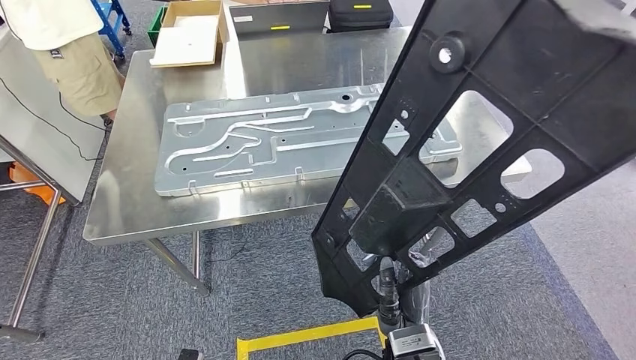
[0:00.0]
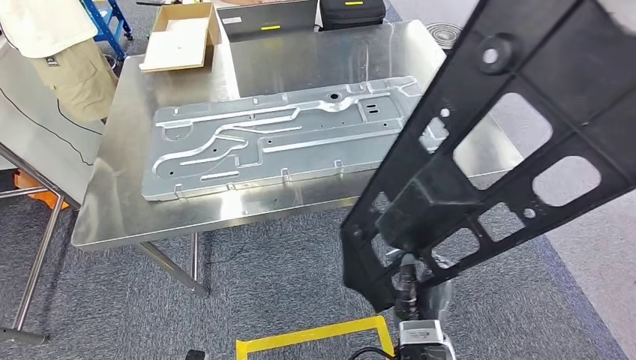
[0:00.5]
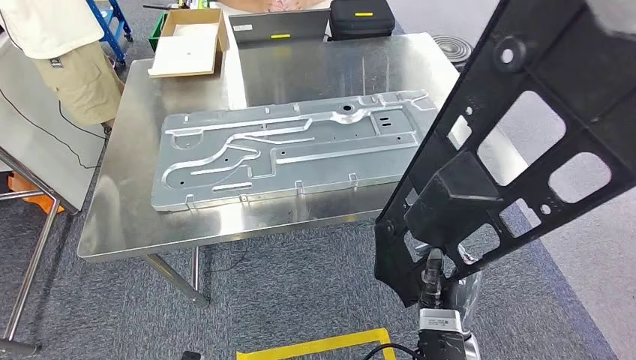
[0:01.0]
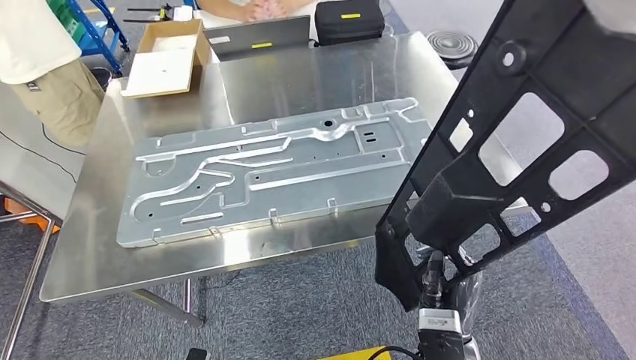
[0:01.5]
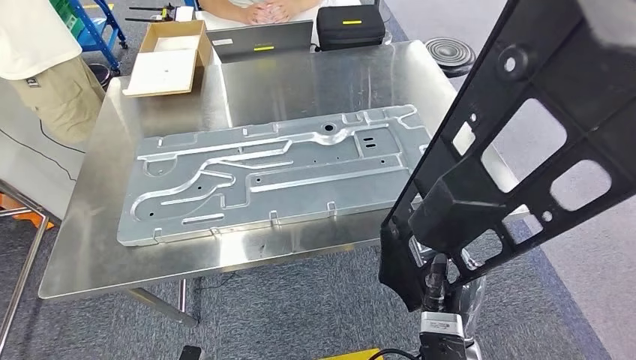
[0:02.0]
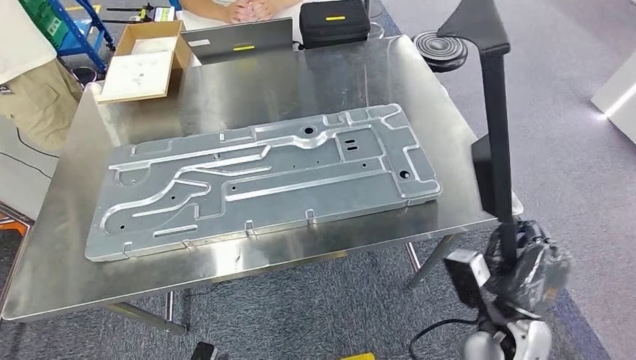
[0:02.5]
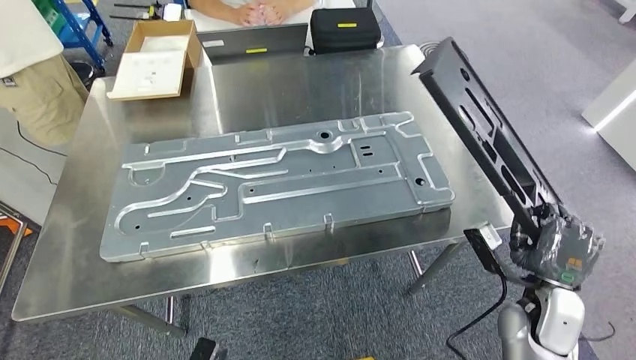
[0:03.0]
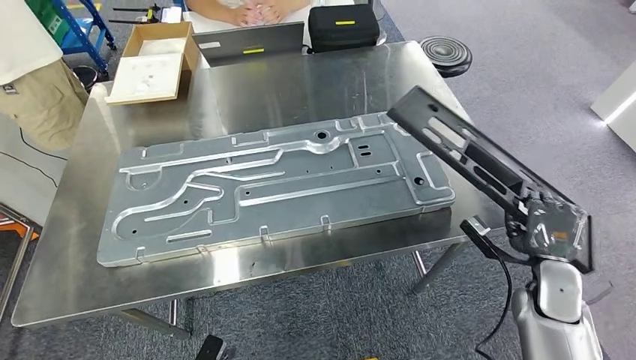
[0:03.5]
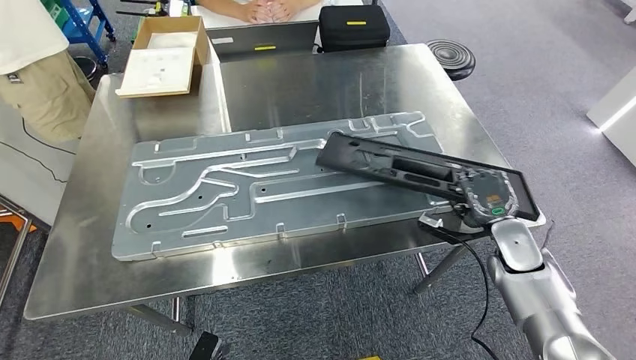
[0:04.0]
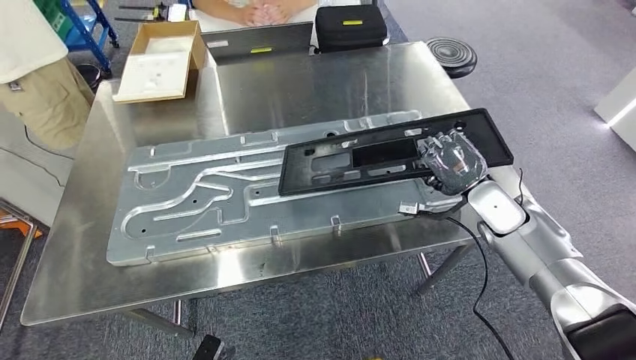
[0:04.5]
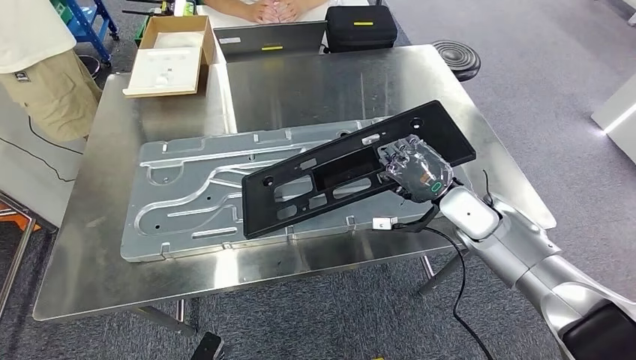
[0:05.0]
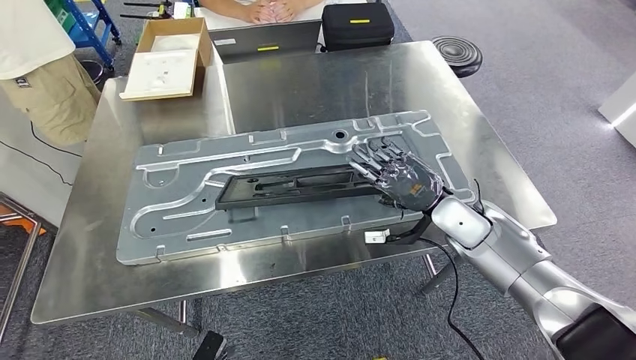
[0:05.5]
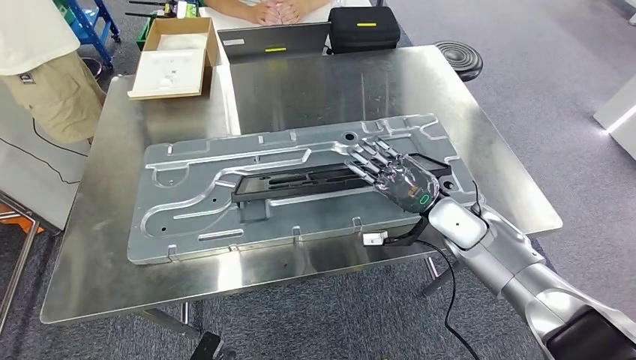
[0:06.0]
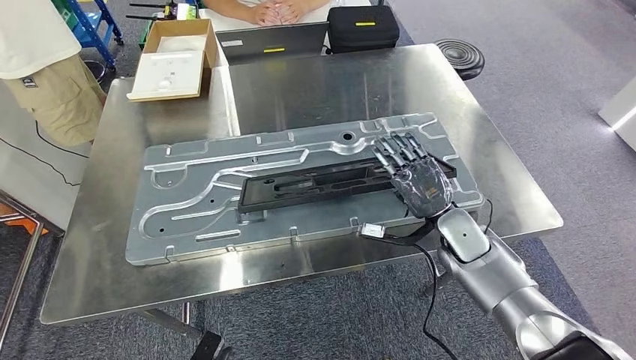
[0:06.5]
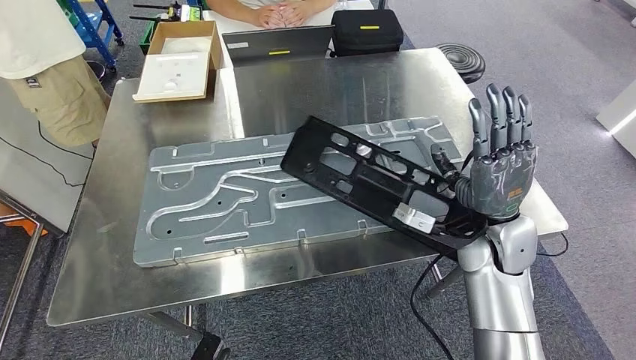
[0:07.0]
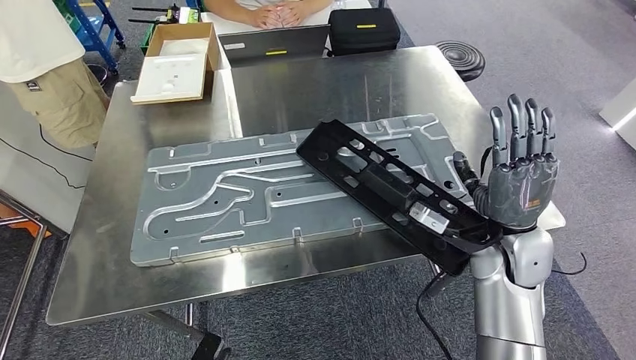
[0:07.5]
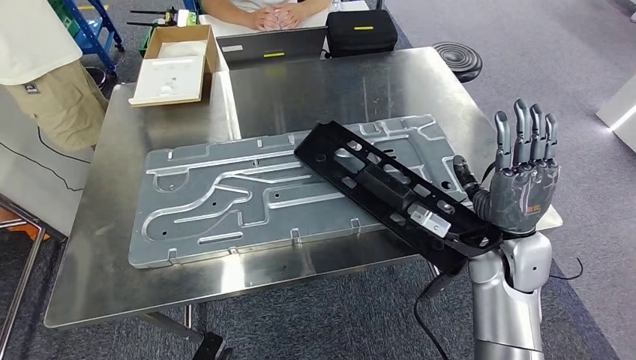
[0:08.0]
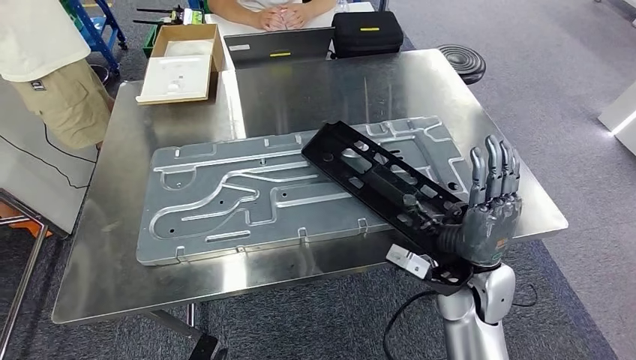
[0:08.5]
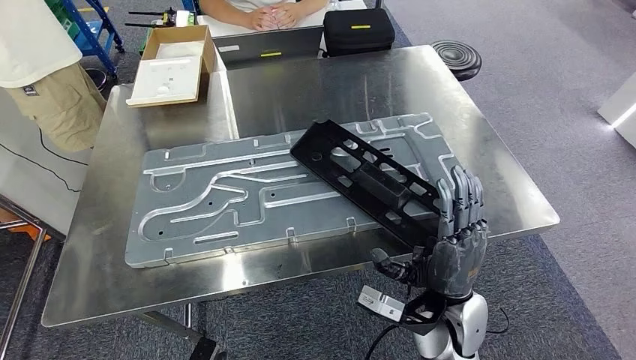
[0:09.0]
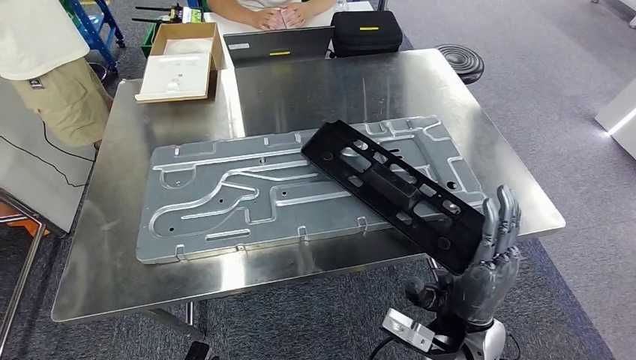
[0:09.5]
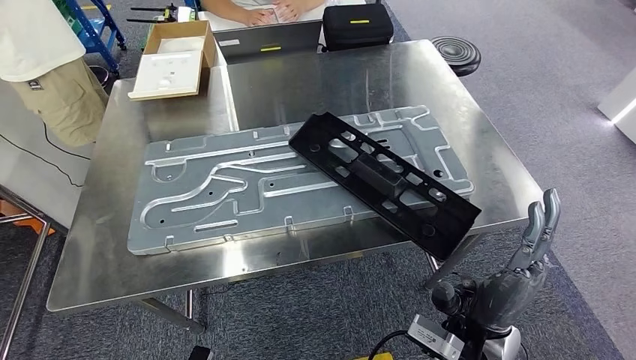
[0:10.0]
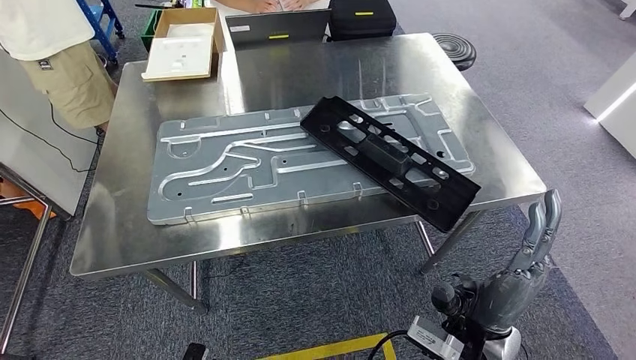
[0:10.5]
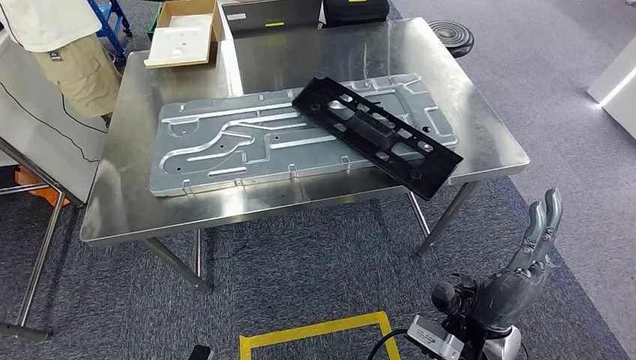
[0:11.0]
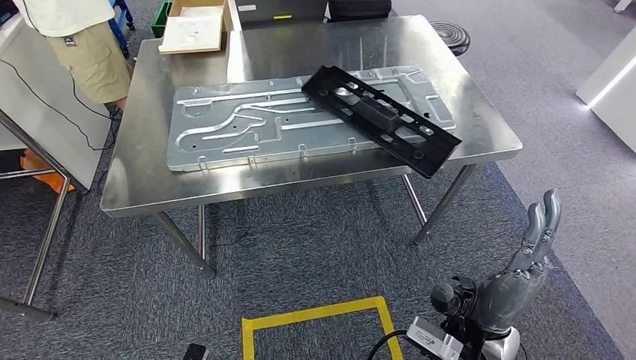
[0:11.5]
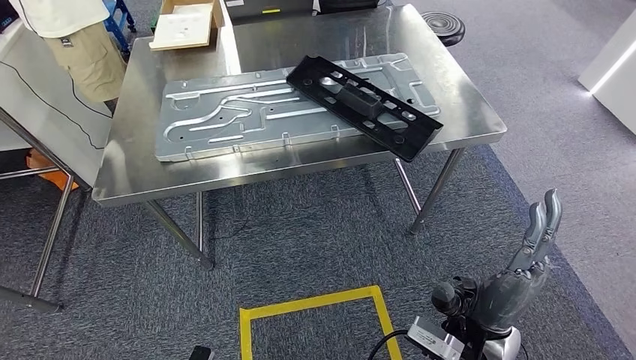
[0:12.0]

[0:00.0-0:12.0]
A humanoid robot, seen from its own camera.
Step, 0:00.5 to 0:11.5: Insert the large material into the corresponding slot on the workbench.

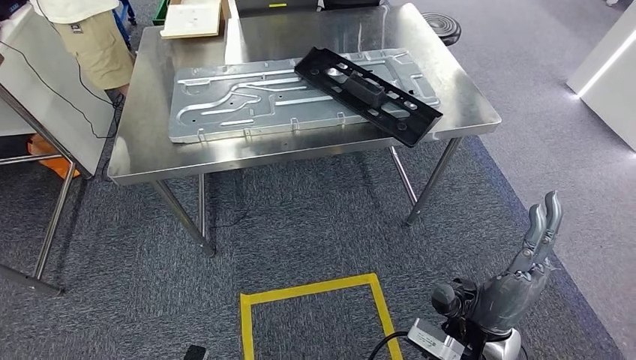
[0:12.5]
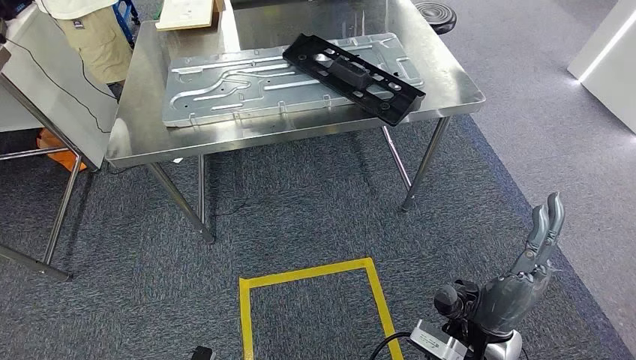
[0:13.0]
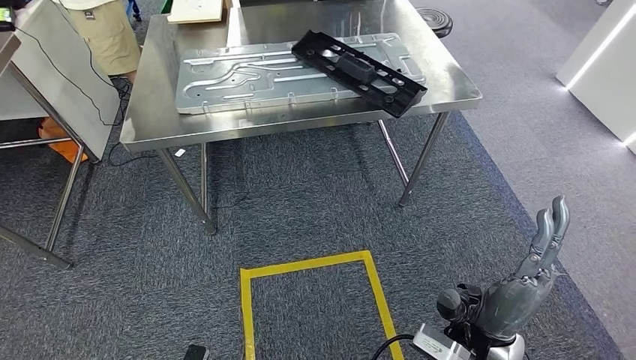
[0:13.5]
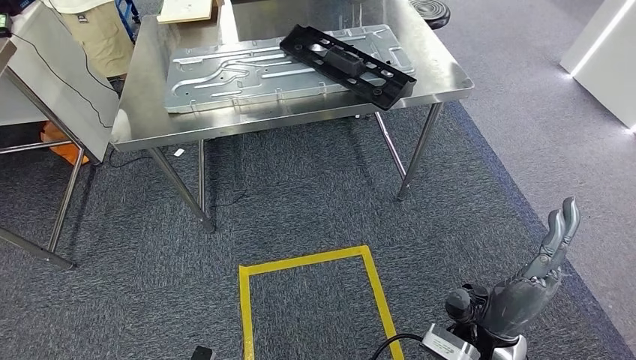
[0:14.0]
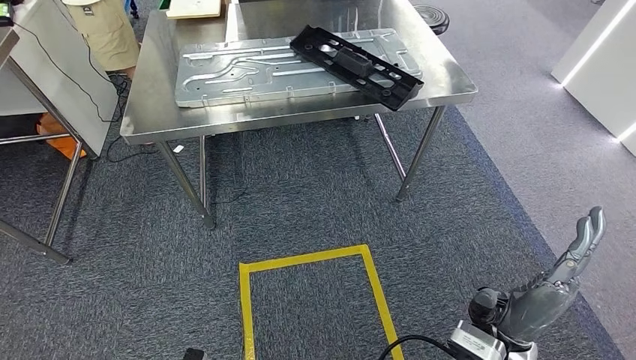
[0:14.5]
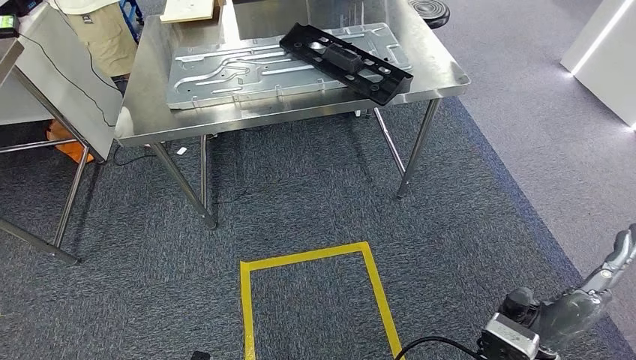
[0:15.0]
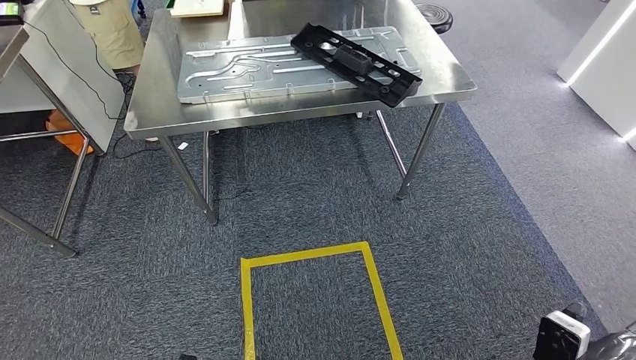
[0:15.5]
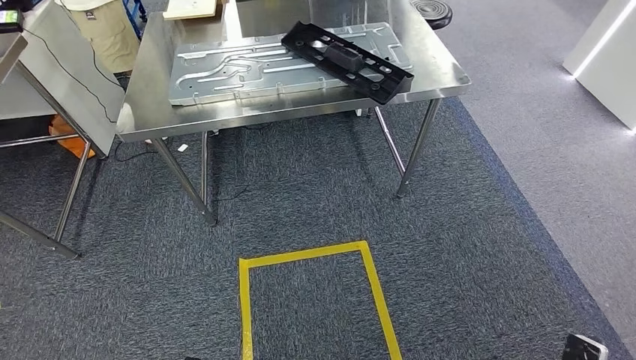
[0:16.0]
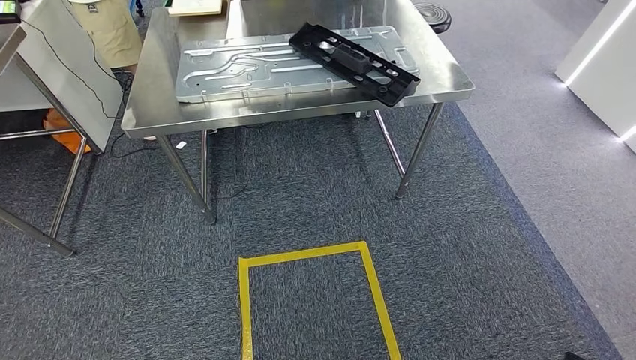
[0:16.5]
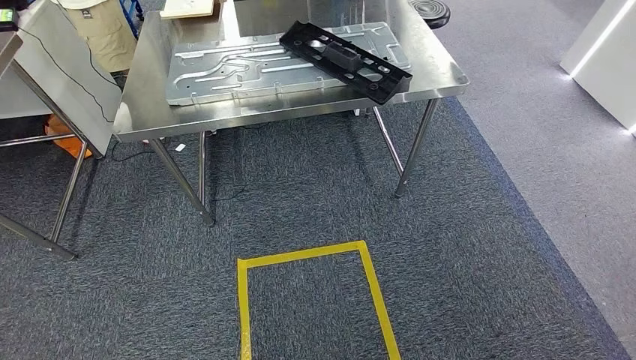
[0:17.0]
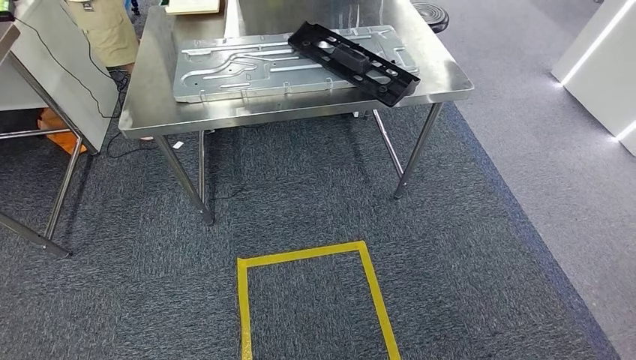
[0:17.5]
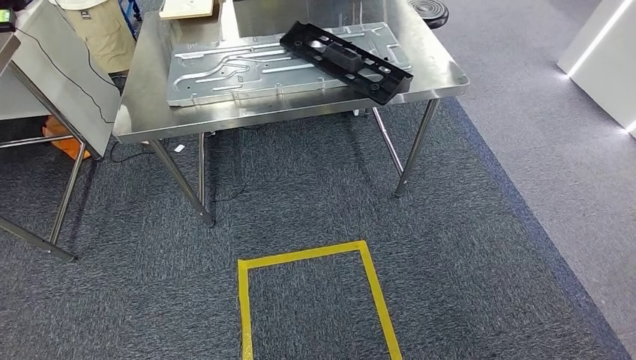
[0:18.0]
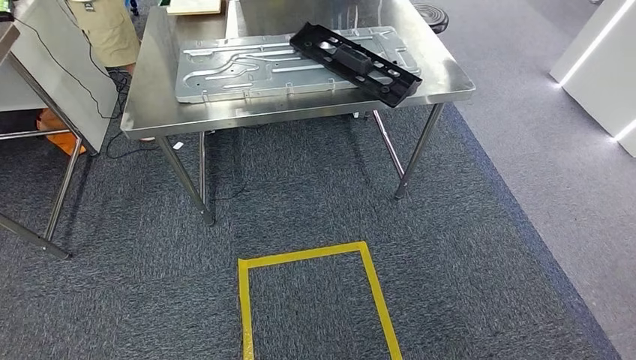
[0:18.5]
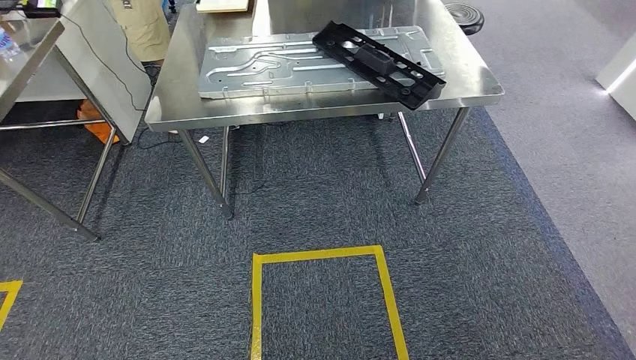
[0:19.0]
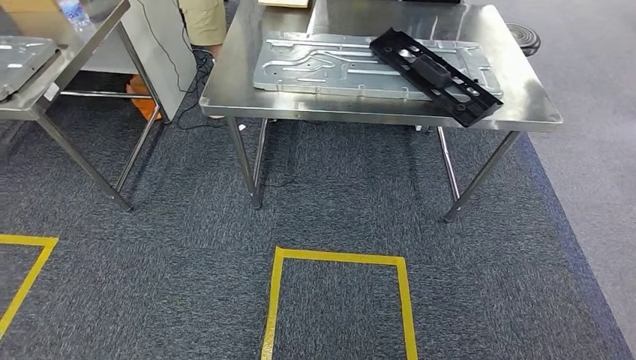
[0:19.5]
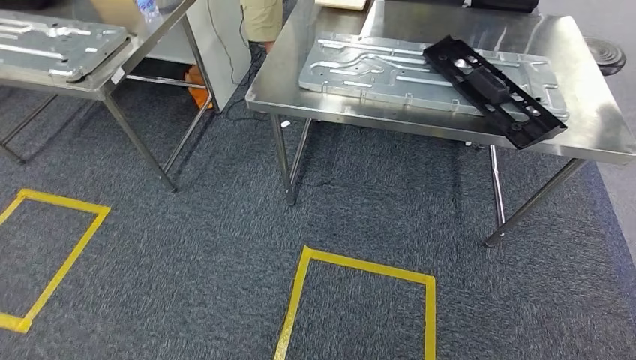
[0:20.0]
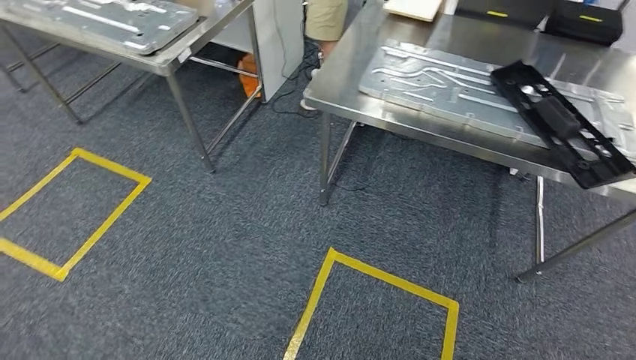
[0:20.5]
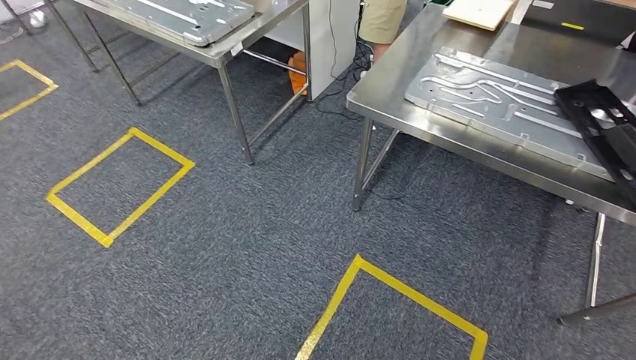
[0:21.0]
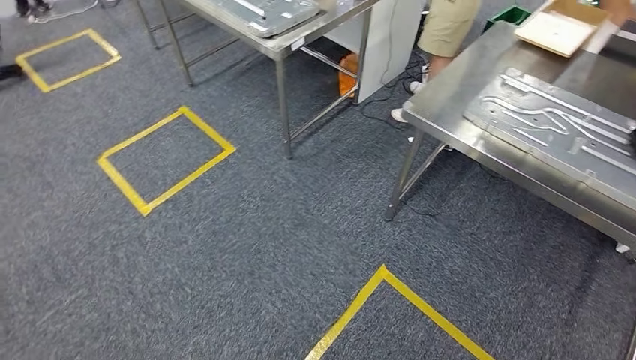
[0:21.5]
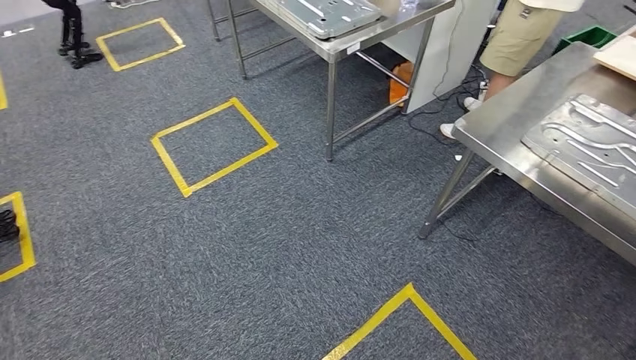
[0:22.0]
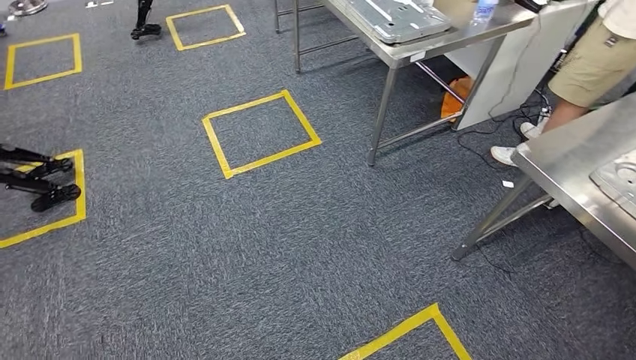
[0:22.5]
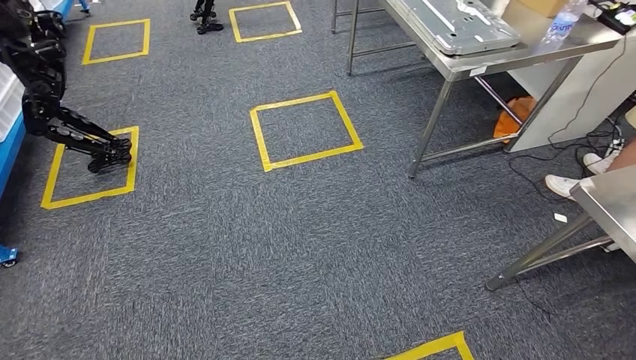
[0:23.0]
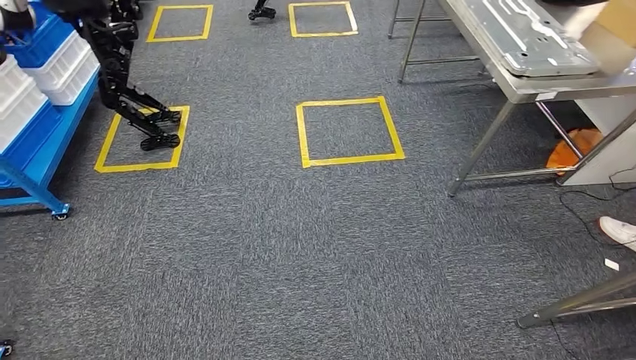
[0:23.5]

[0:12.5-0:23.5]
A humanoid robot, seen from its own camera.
0:14.5 to 0:16.0: The right hand shifts roughly 30 cm downward, to the right and backward.
0:16.0 to 0:18.0: The right hand shifts roughly 15 cm downward, to the left and backward.
